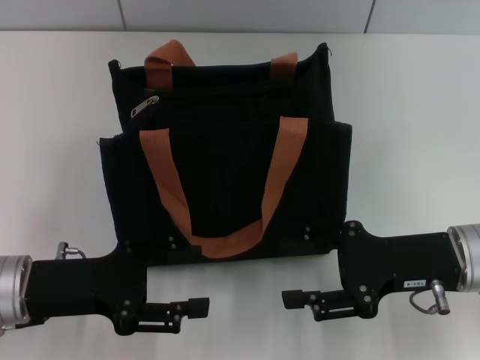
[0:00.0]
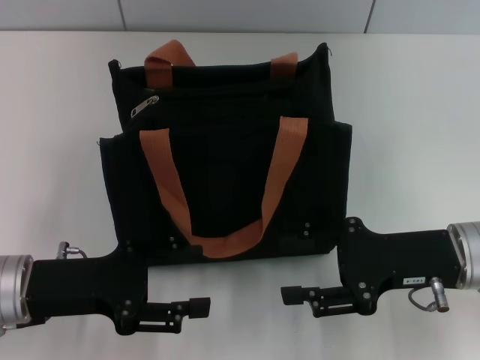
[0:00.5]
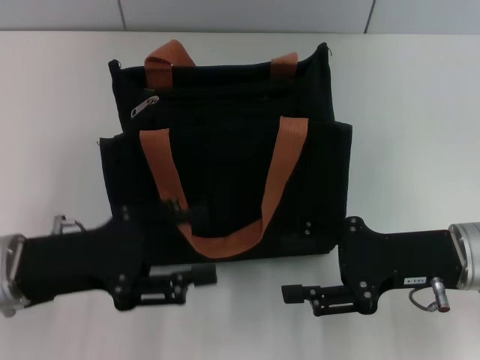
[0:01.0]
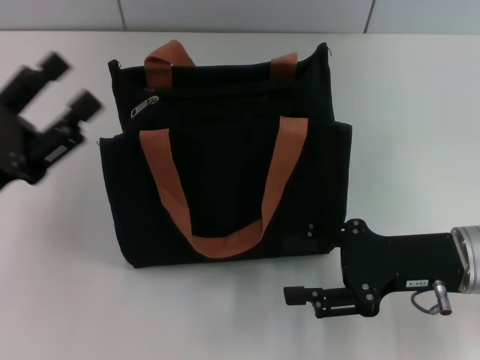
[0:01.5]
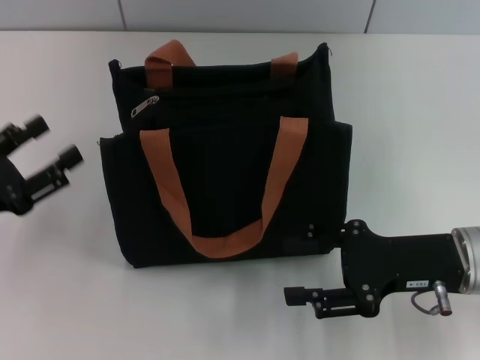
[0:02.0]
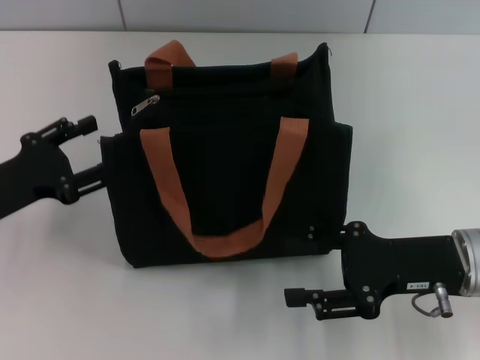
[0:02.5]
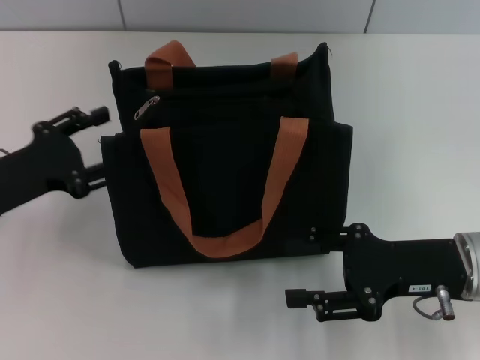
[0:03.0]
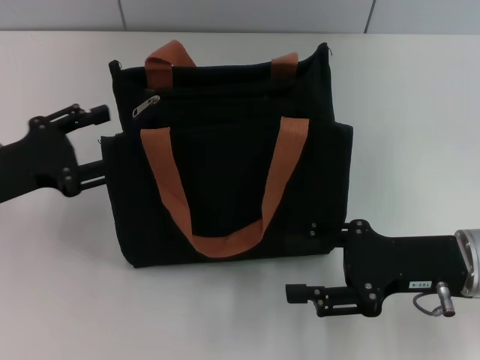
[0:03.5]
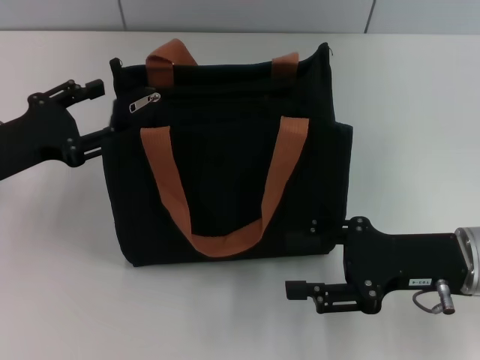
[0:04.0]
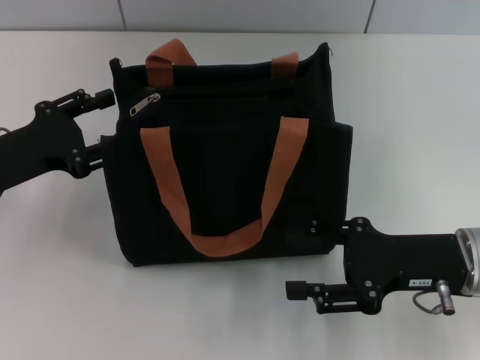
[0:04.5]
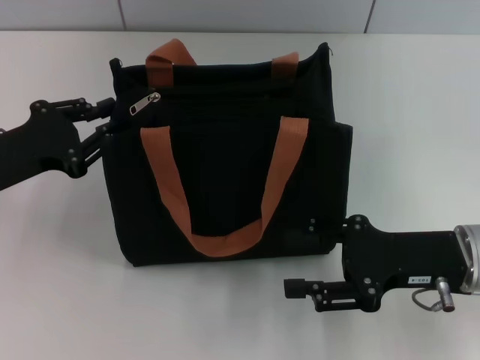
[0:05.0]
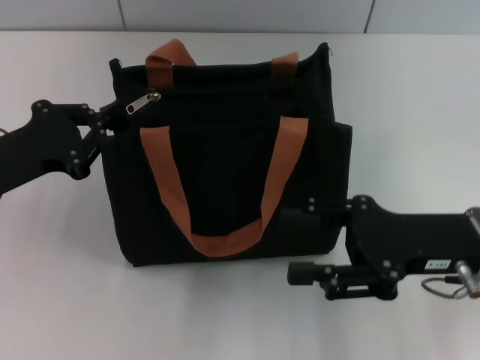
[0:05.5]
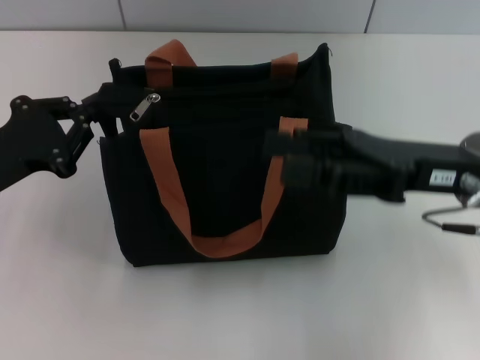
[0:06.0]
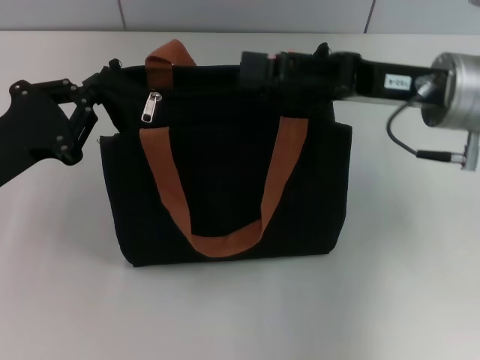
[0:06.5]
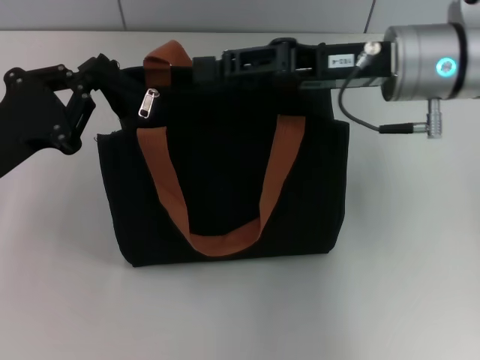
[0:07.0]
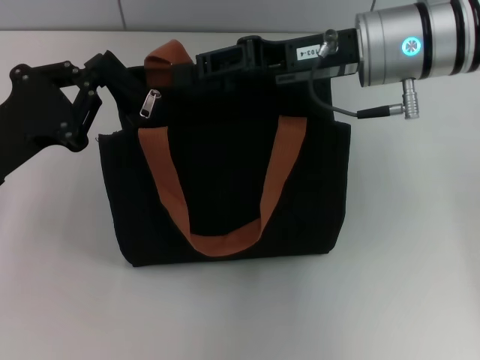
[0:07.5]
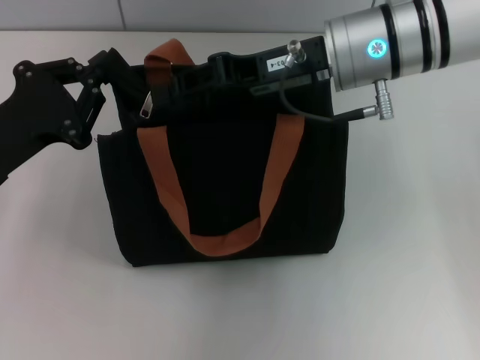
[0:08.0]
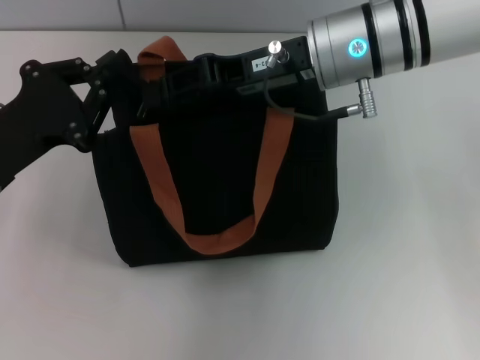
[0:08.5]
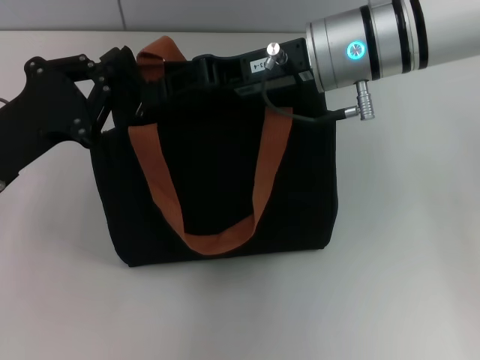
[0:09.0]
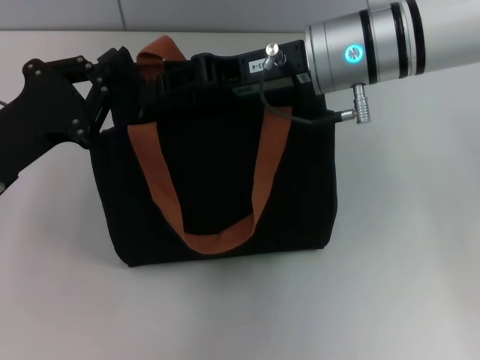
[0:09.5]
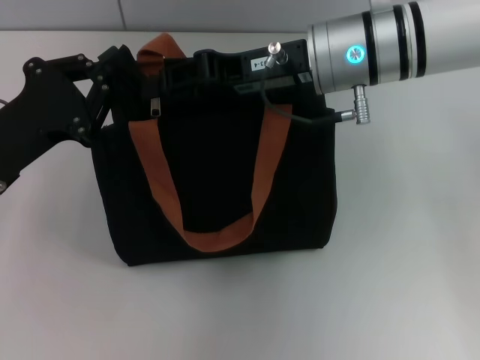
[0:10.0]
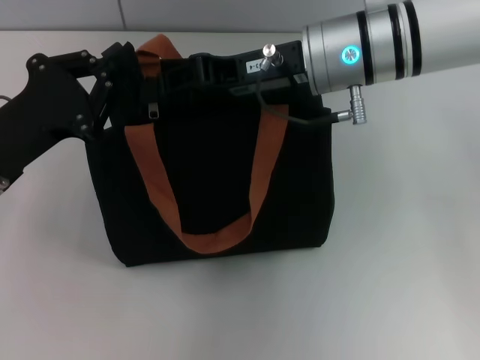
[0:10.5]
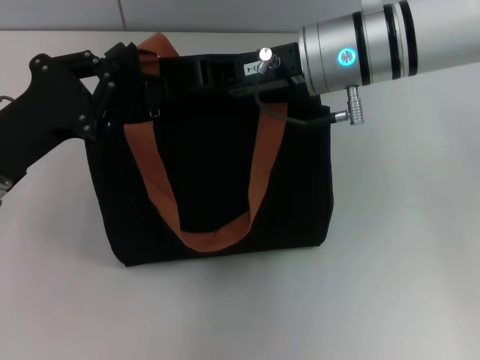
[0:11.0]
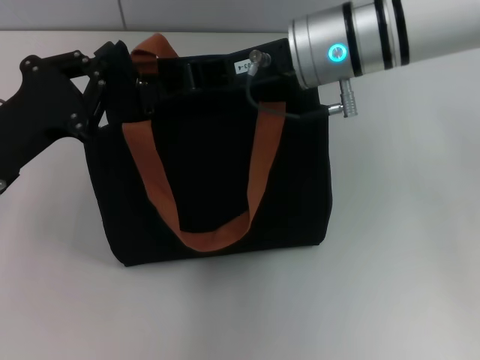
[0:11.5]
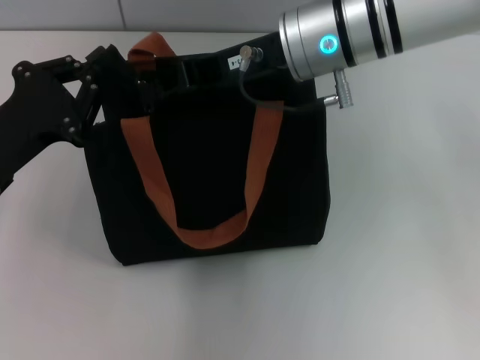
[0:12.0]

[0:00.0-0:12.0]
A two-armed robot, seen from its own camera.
0:00.0 to 0:02.0: The left gripper heads to the left, covering some 10 cm.
0:02.0 to 0:04.0: The left gripper goes roughly 10 cm forward.
0:04.0 to 0:06.0: The left gripper closes its fingers; the right gripper travels upward by approximately 5 cm.
0:06.0 to 0:08.0: The right gripper shifts roughly 15 cm to the left, forward and upward, and closes up.
0:08.0 to 0:10.0: The grippers move only a little.
0:10.0 to 0:12.0: The right gripper closes up.

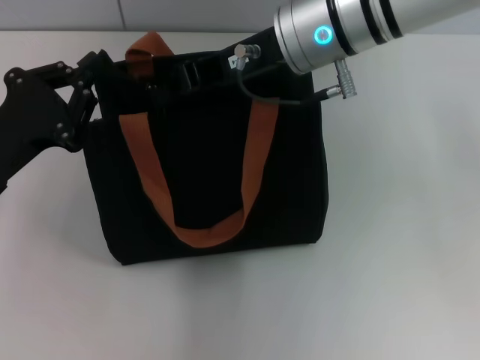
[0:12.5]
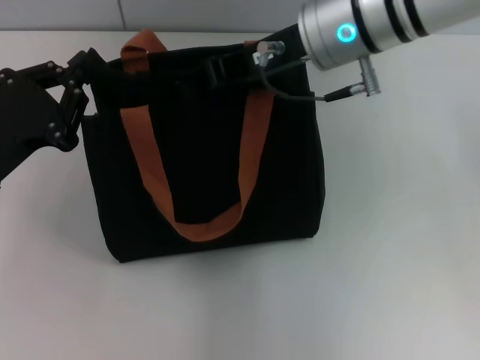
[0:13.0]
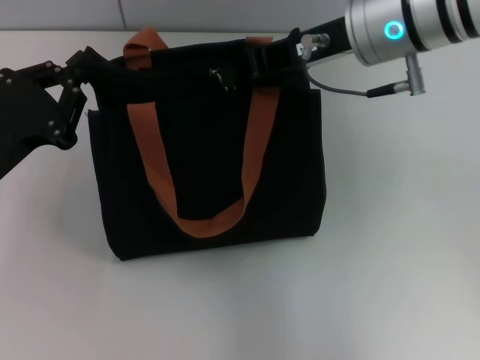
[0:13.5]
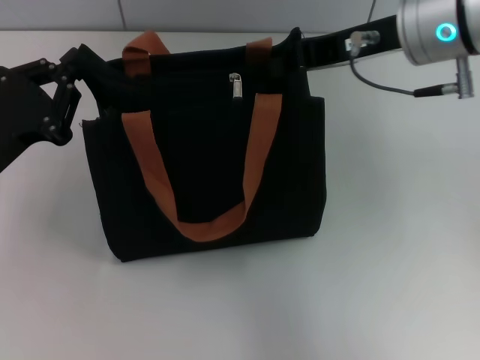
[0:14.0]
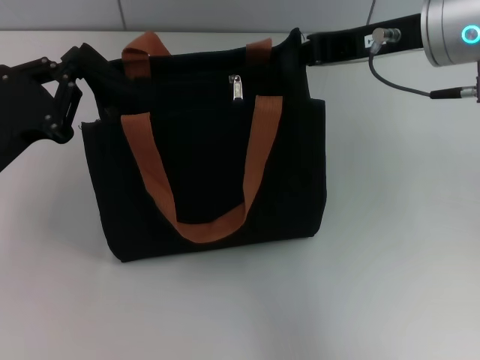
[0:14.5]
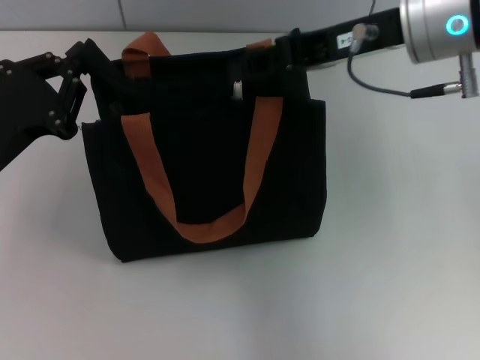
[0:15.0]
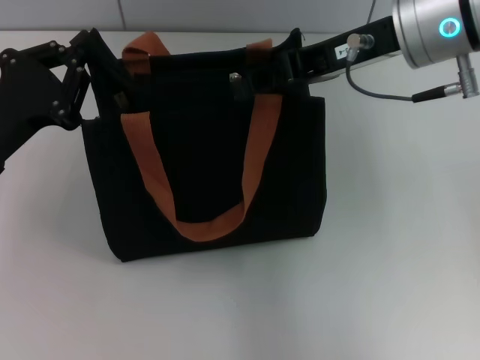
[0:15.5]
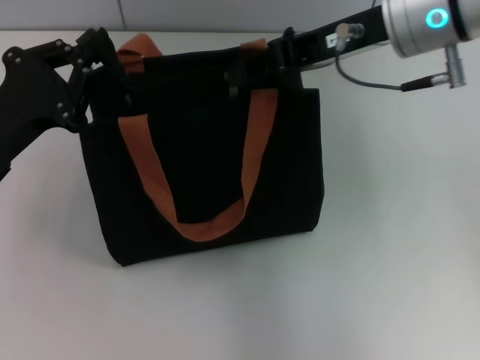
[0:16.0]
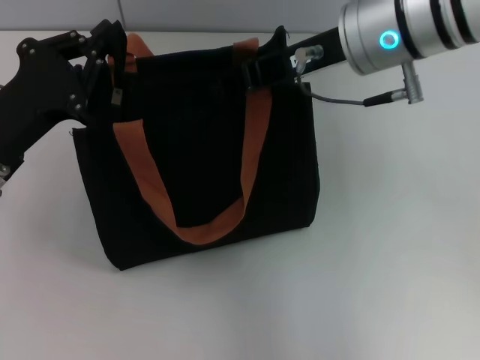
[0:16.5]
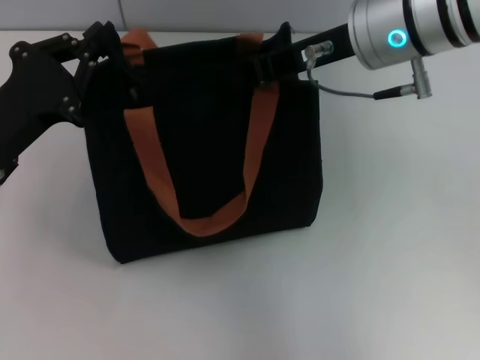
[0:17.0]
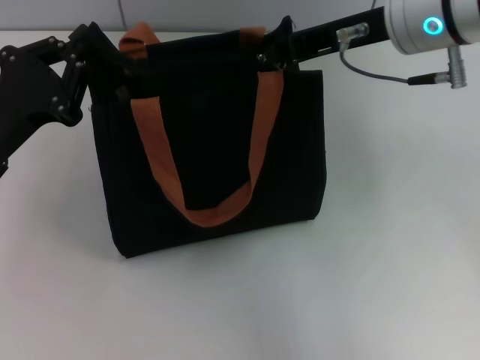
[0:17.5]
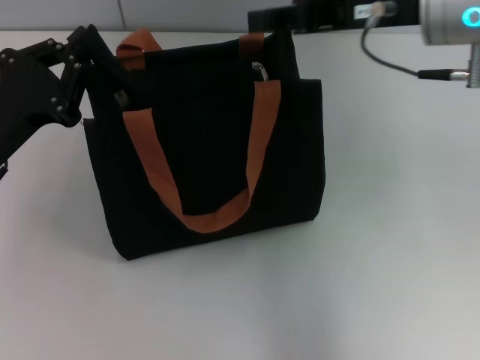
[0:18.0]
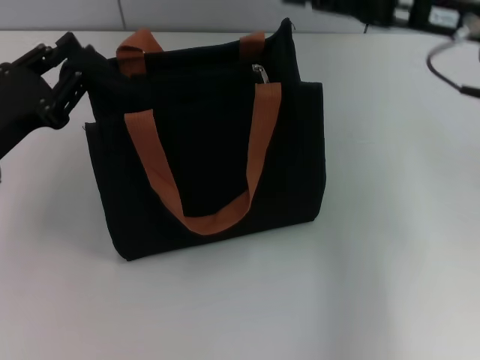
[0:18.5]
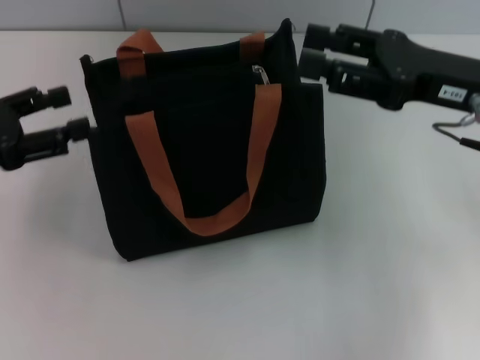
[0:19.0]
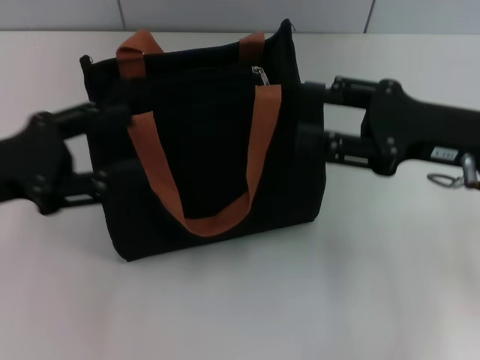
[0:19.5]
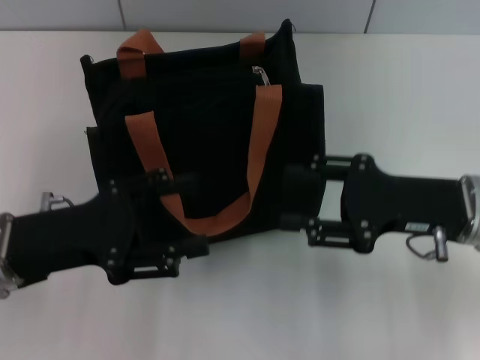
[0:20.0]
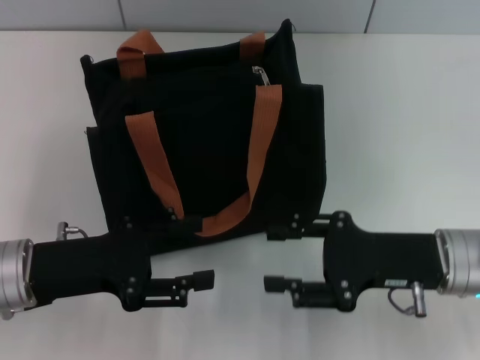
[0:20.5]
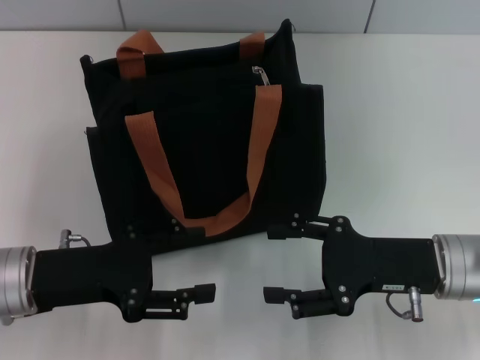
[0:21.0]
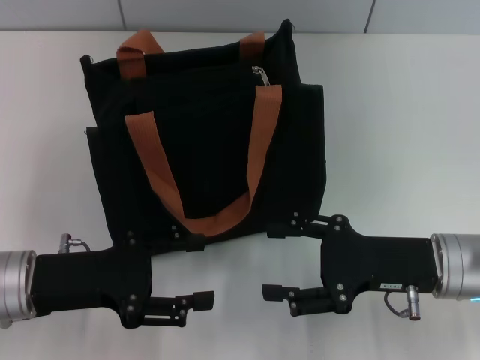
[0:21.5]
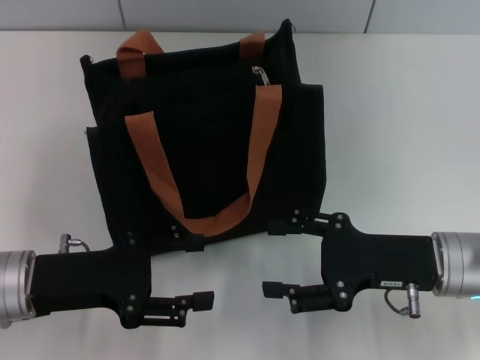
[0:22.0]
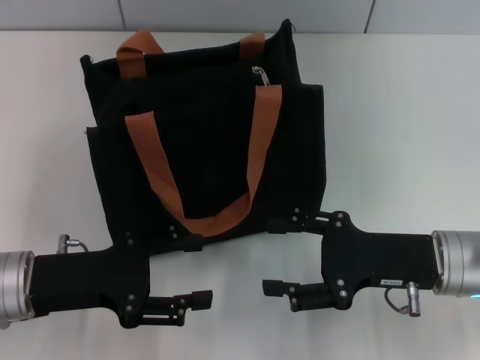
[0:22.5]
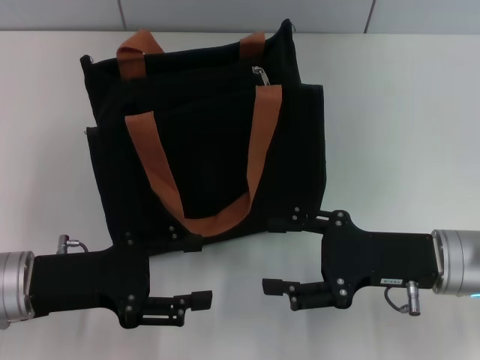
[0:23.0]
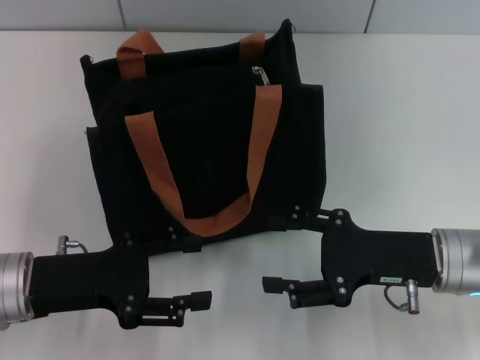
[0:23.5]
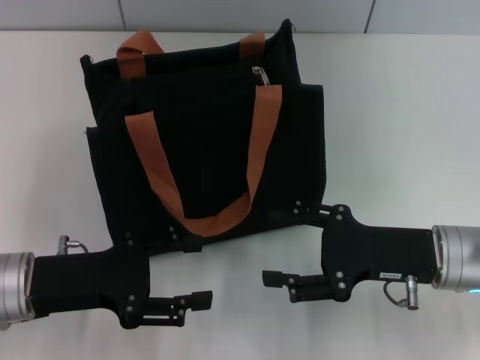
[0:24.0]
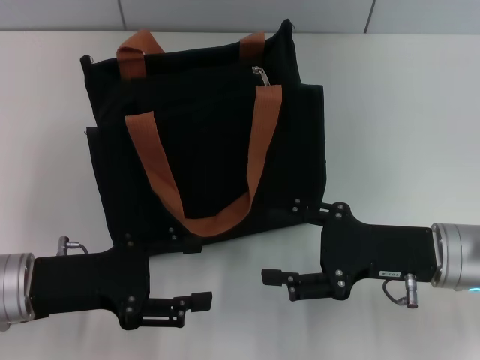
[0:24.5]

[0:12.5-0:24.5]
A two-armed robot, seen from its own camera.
Step, 0:12.5 to 0:17.5: Pull up the zipper with your right hand.
Step, 0:18.0 to 0:18.5: Grab the zipper with your left hand.
0:12.5 to 0:14.5: The right gripper is displaced to the right by about 10 cm.
0:14.5 to 0:16.5: The right gripper shifts about 5 cm to the left.
0:16.5 to 0:18.5: The right gripper travels to the right by roughly 10 cm.
0:18.5 to 0:20.5: The right gripper travels downward and backward by about 20 cm, while the left gripper ends up roughly 5 cm from where it was, and opens its fingers.
0:20.5 to 0:24.5: Both grippers stay about where they are.

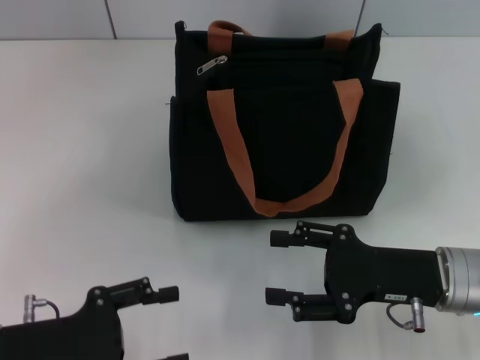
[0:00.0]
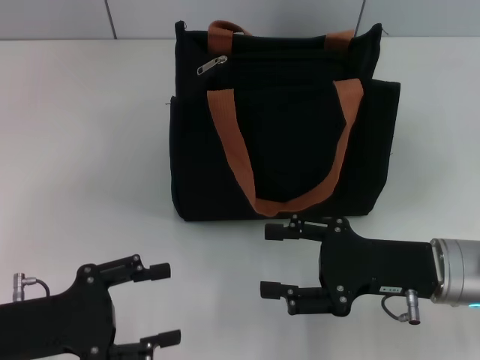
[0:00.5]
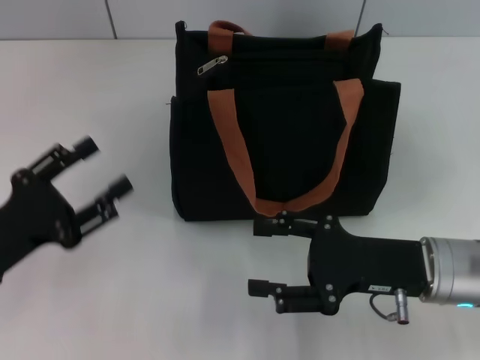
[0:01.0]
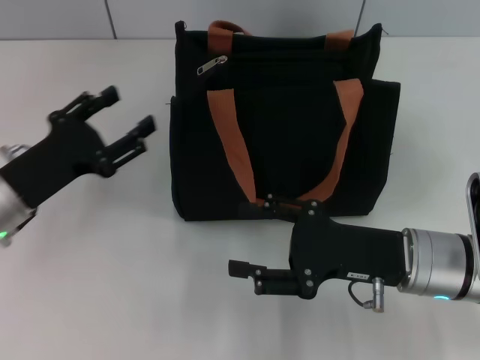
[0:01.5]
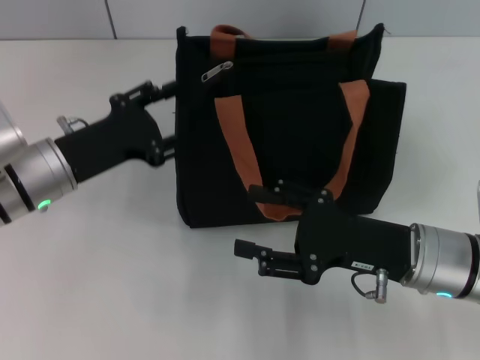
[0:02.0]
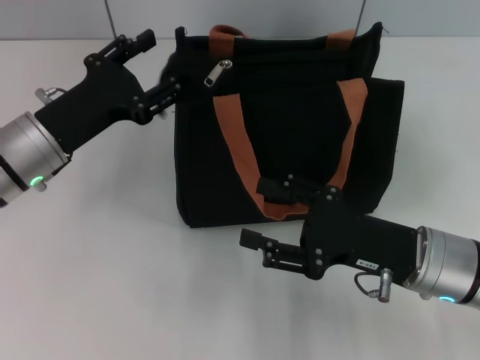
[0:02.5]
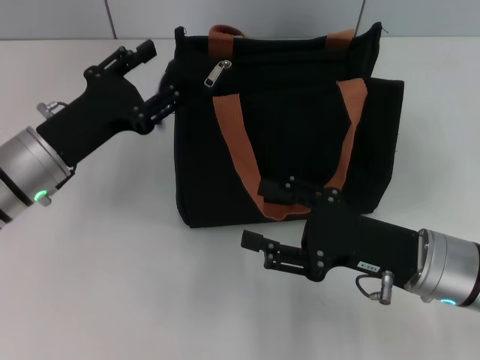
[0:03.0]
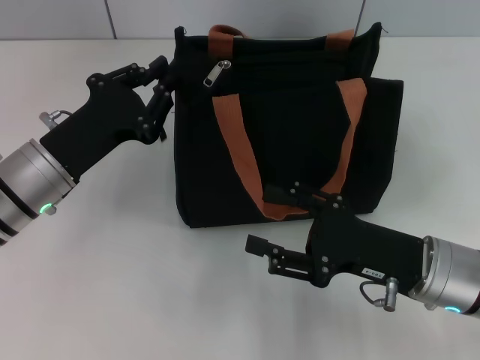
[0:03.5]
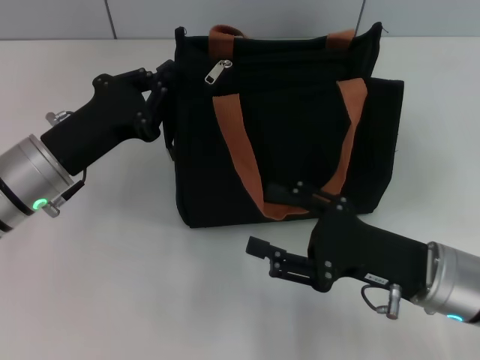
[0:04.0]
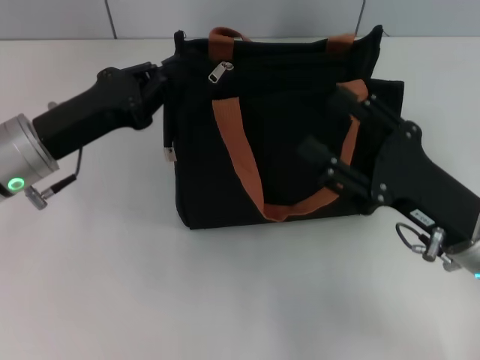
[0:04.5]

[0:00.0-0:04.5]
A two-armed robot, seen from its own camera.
0:00.0 to 0:02.0: The left gripper moves forward, some 15 cm.
0:02.0 to 0:04.5: The left gripper closes.
